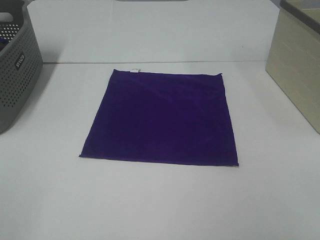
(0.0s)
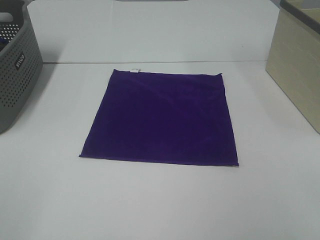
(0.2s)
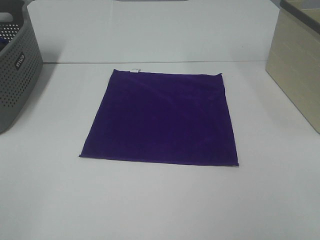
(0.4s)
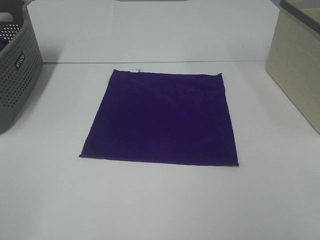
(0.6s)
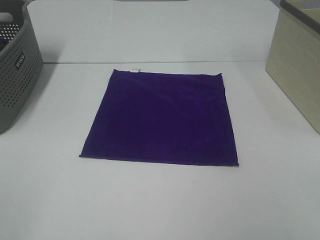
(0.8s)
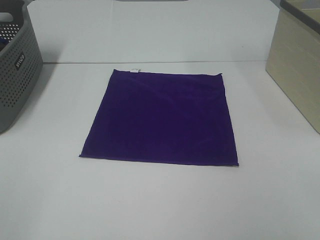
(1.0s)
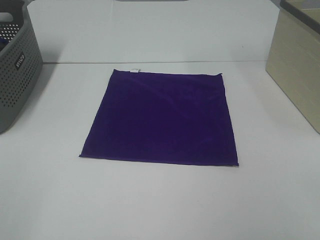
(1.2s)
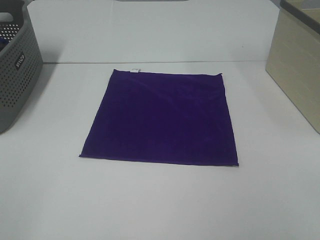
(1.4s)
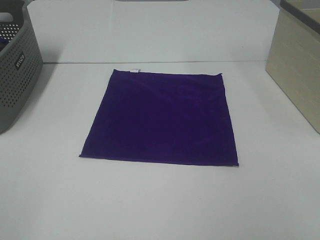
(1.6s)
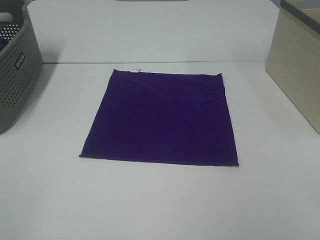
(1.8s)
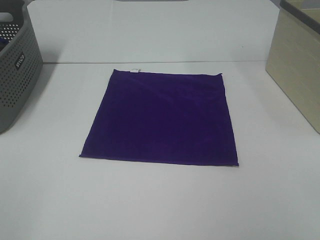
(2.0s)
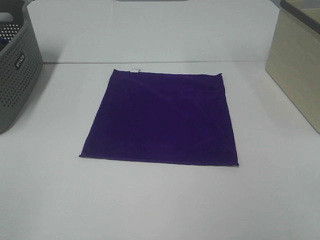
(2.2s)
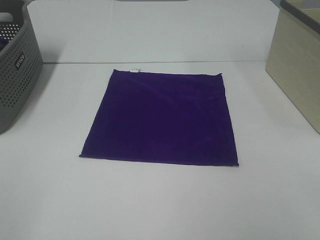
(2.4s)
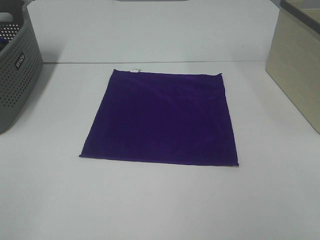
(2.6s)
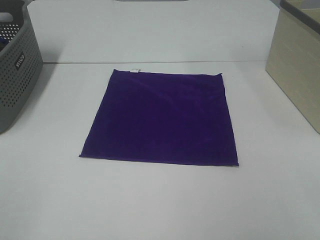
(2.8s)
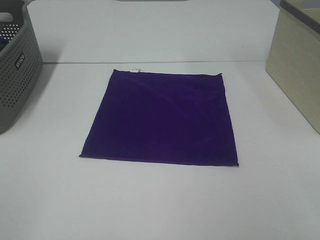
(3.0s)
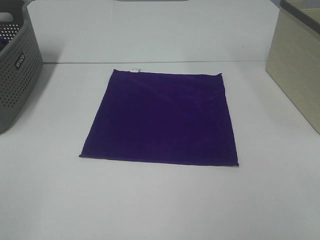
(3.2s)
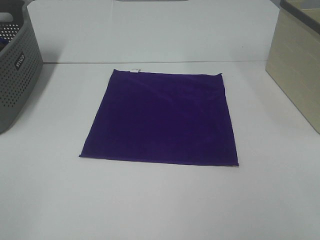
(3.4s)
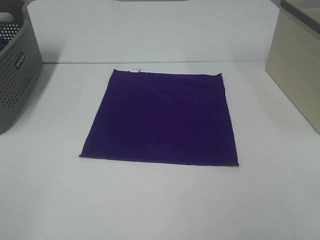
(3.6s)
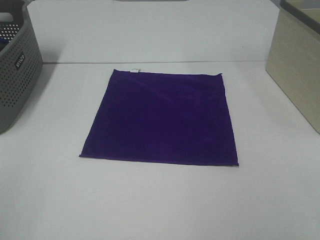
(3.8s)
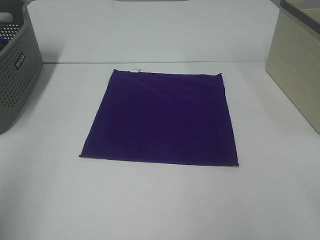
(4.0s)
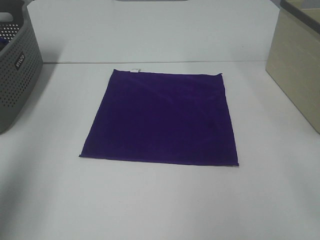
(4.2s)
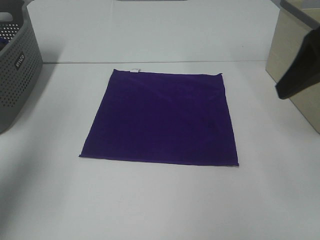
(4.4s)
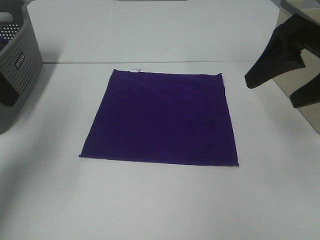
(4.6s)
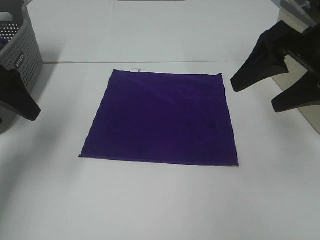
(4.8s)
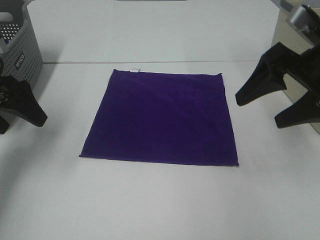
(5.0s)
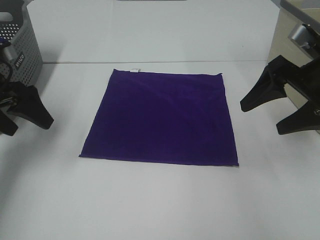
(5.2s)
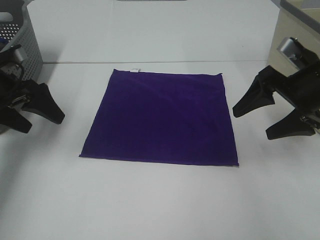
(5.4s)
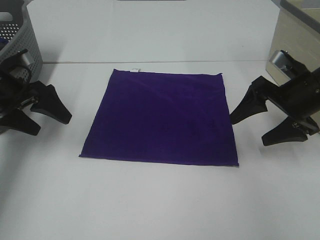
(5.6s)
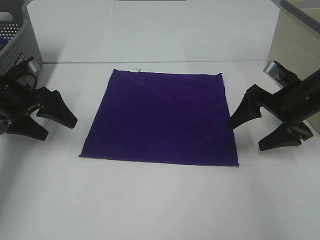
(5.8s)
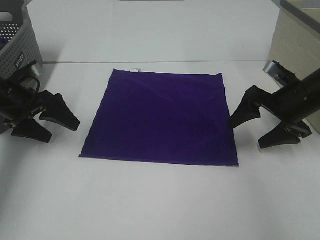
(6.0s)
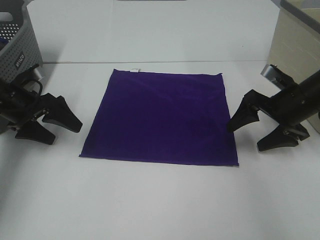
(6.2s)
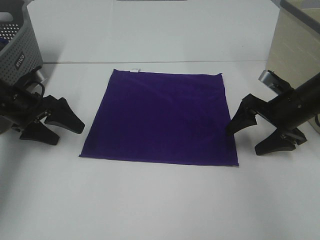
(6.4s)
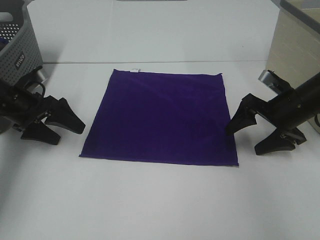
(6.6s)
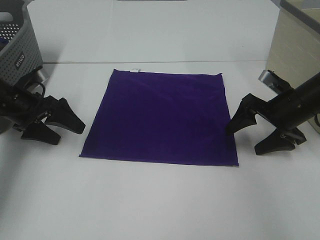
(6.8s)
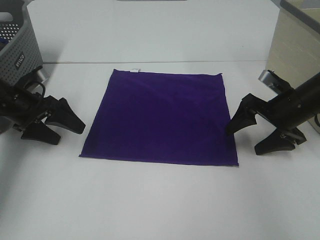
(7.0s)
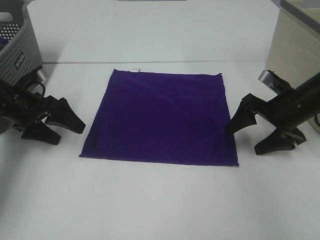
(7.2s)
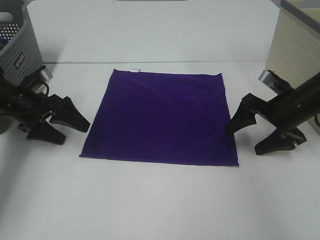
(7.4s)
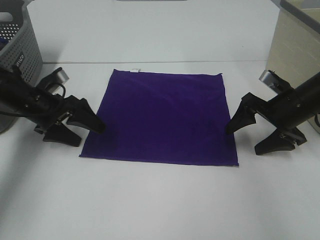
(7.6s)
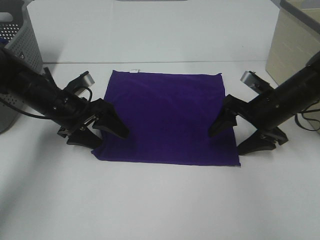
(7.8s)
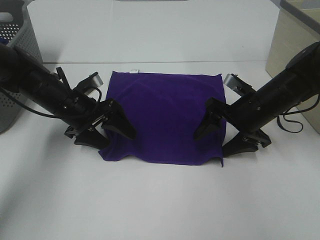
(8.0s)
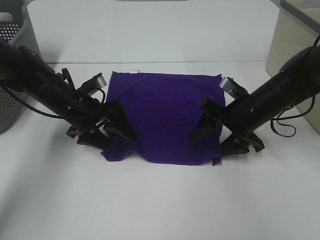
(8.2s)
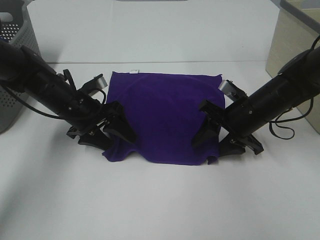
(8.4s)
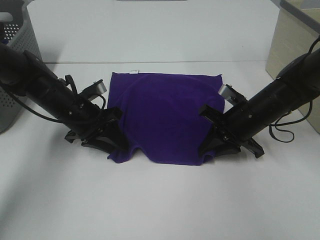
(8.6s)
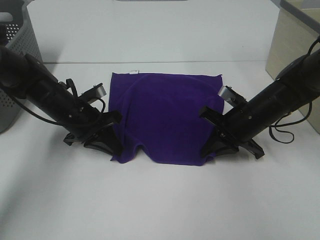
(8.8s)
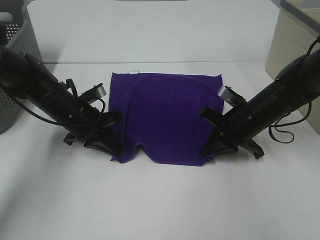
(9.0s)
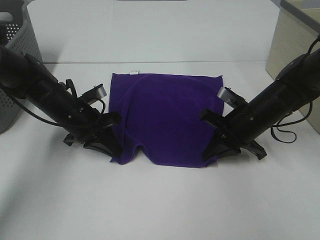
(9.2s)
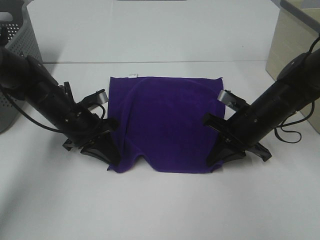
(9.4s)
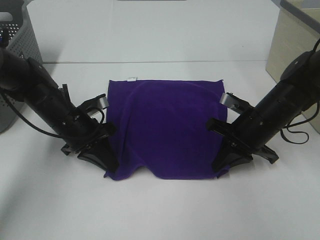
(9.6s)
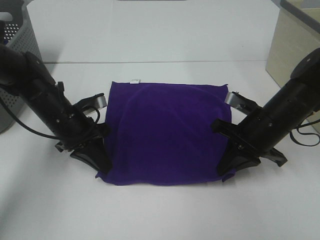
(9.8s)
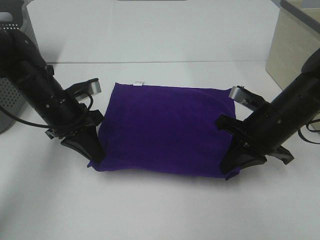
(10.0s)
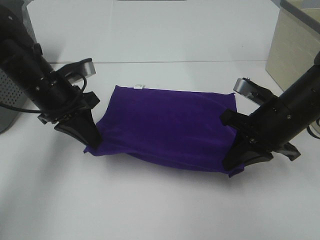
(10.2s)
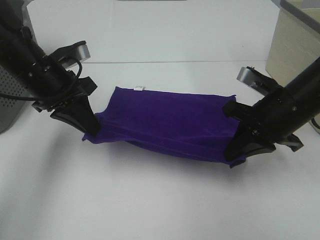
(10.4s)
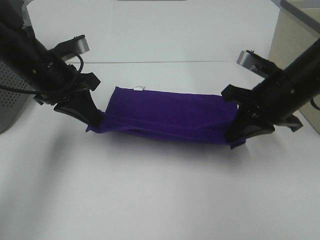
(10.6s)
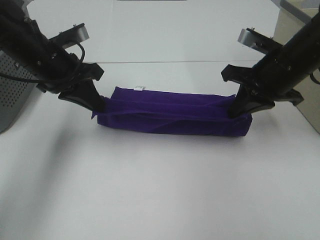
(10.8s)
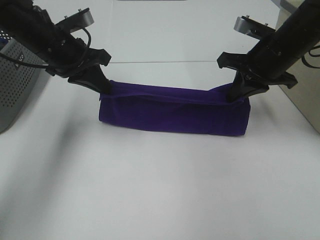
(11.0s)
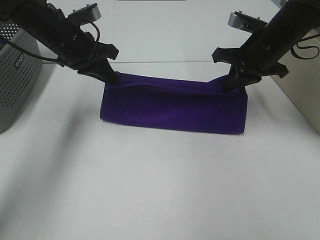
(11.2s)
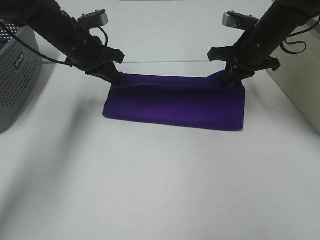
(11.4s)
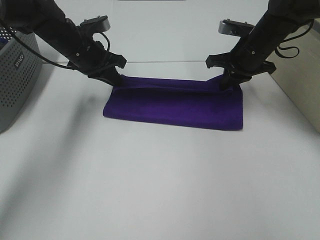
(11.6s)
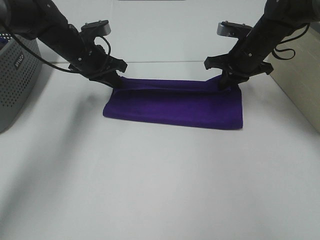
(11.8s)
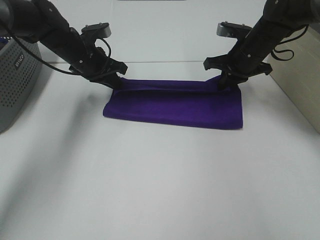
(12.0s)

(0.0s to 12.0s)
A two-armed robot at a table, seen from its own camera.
Task of the whole recording: Fold towels.
Step, 0.0s - 8.6s: Left hand: grab the bottom left corner of purple towel.
Step, 0.0s - 8.6s: Right hand: grab the bottom right corner of purple towel.
0.0s - 3.0s: Both grippers stay put.
3.0s - 4.4s: The two grippers go approximately 25 cm forward.
4.4s - 6.0s: Both grippers move downward and forward, some 25 cm.
6.0s - 7.6s: The left gripper shifts by some 5 cm.
7.6s - 9.0s: The right gripper moves to the left, about 10 cm, and closes up. The left gripper moves to the right, approximately 5 cm, and closes up.
9.0s - 10.4s: The left gripper goes roughly 10 cm upward. The right gripper goes roughly 10 cm upward and backward.
10.4s - 12.0s: The two grippers go approximately 15 cm forward.

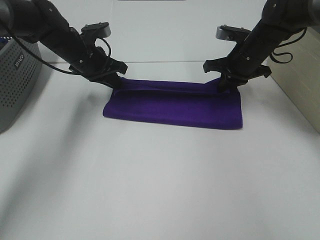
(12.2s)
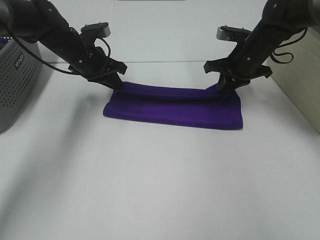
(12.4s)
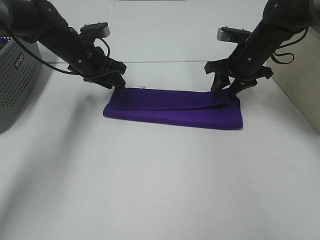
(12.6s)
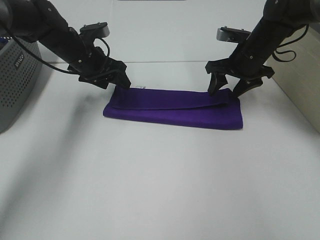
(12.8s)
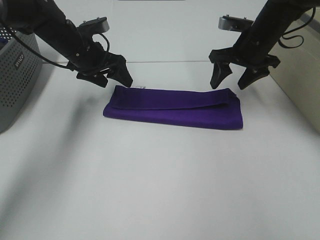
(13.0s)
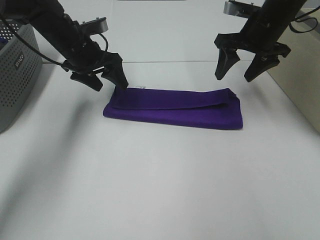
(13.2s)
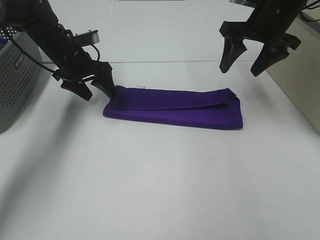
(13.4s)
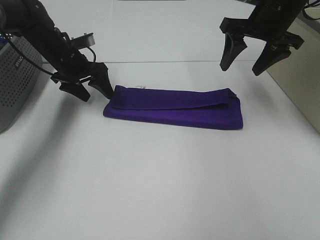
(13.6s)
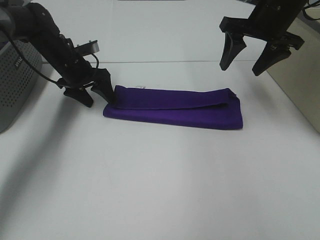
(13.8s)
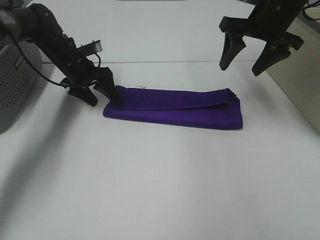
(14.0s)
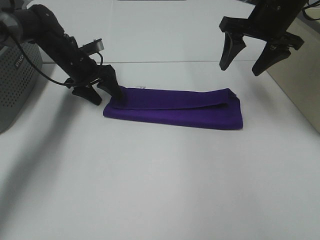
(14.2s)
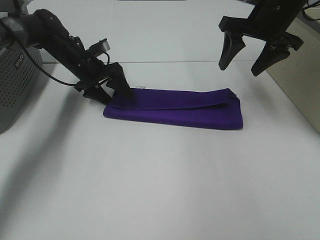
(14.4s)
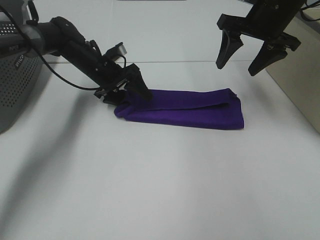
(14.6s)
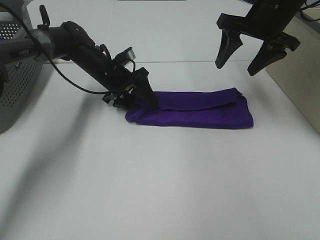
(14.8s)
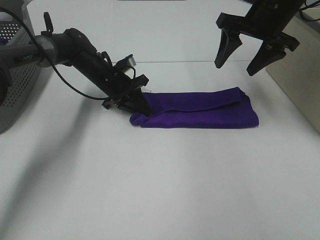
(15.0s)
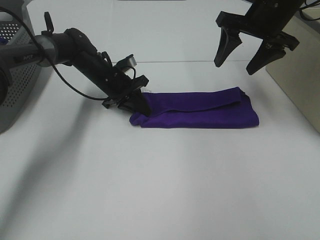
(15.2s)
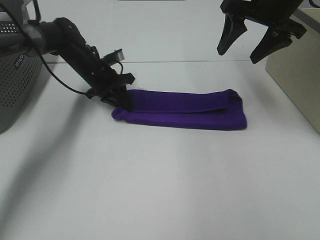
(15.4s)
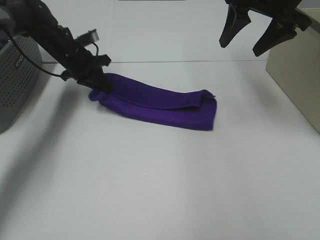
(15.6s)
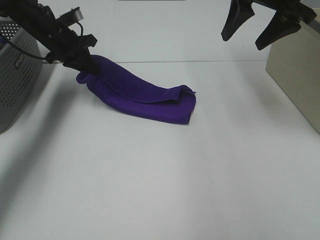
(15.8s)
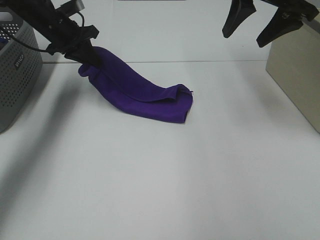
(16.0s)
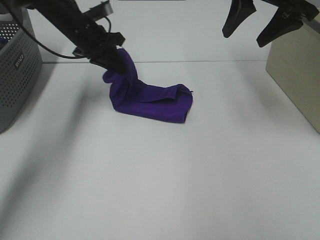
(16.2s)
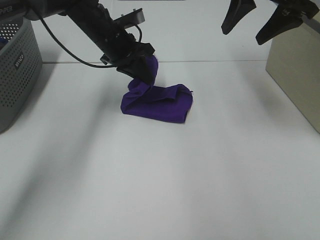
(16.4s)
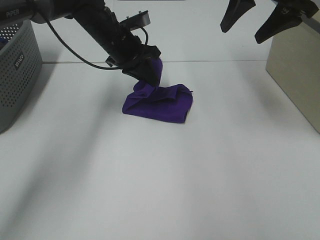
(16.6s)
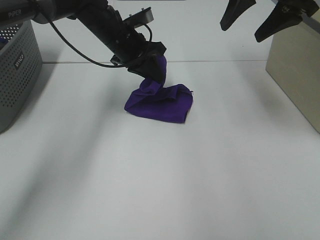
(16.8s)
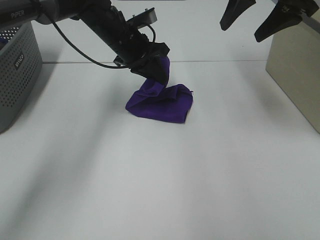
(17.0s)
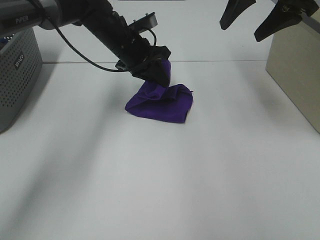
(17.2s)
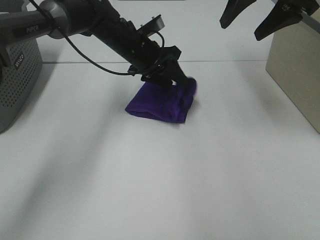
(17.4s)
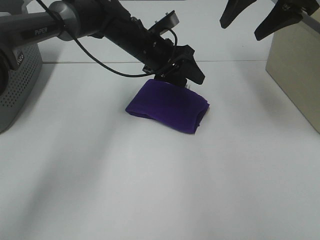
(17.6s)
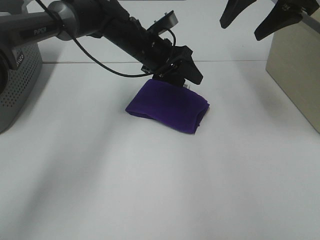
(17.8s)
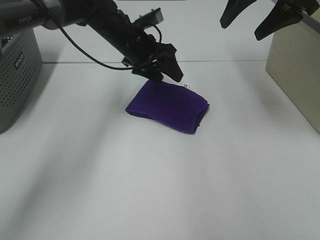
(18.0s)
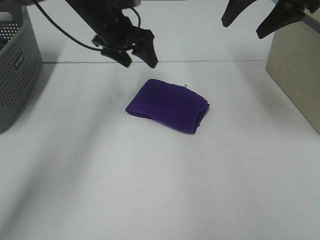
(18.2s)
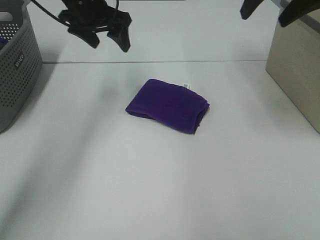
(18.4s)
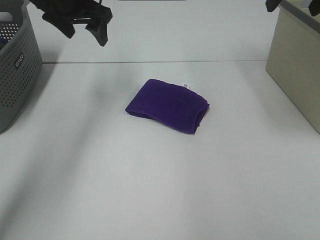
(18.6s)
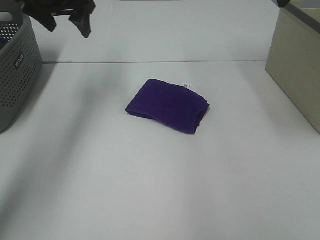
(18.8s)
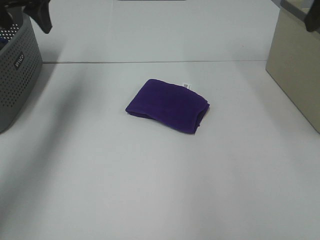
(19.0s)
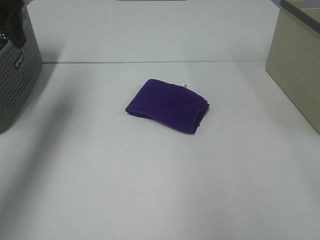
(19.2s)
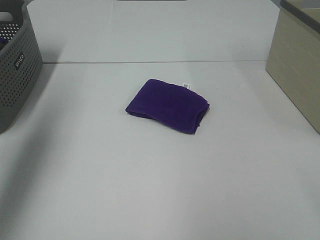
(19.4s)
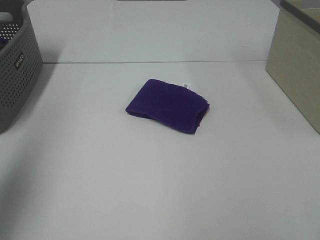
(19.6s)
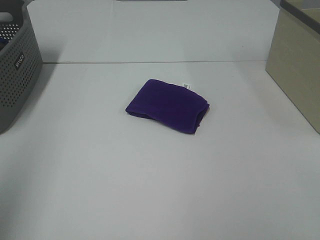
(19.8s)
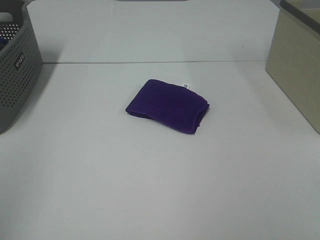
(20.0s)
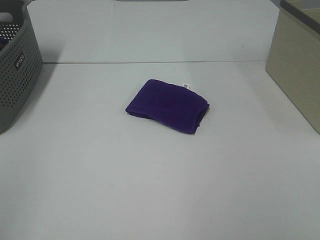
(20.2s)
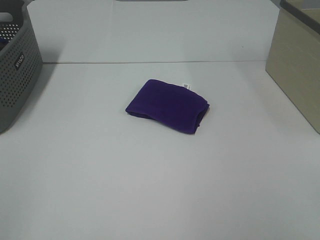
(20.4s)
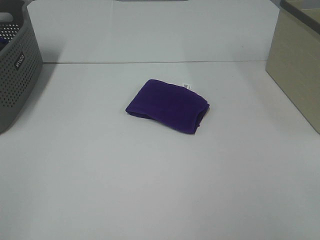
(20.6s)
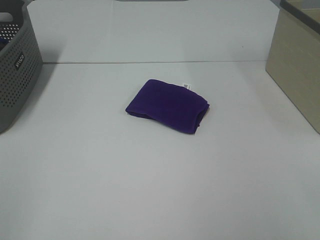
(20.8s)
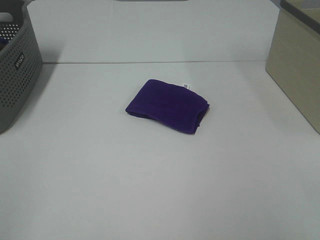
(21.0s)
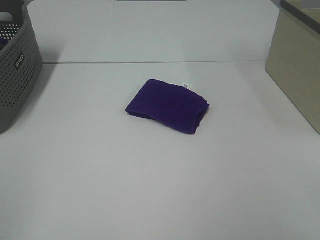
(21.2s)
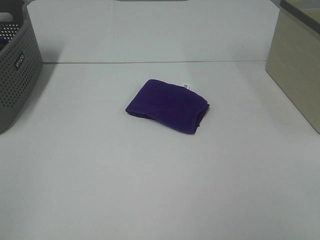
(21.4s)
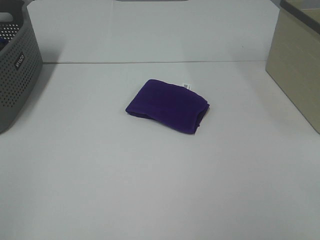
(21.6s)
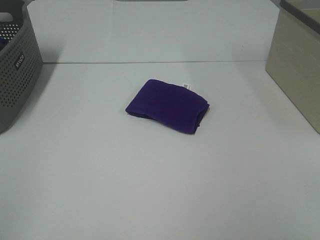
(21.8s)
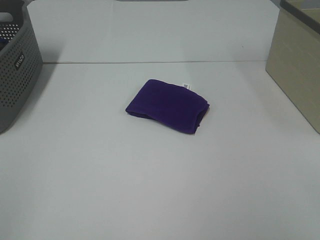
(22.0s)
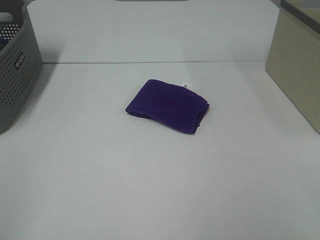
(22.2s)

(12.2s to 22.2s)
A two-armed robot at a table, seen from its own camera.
Task of the whole recording: Fold towels.
Step, 12.6s - 17.2s: Left hand: fold the purple towel from left to right.
12.2s - 13.6s: The right gripper shifts some 10 cm upward, and opens. Meanwhile the left gripper opens up.
13.6s - 15.0s: The left gripper shifts roughly 10 cm to the right and downward, and closes its fingers.
15.0s - 16.4s: The left gripper goes approximately 10 cm upward, and reaches approximately 10 cm to the left, then returns; the right gripper is displaced upward by some 5 cm.
16.4s - 18.0s: The left gripper opens up.
18.0s - 19.4s: The left gripper travels to the left, backward and upward by about 35 cm. Meanwhile the right gripper goes some 30 cm backward.
19.4s - 20.8s: The left gripper moves backward, roughly 30 cm.
